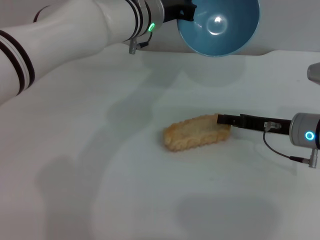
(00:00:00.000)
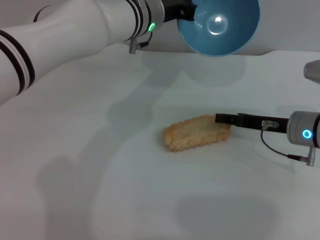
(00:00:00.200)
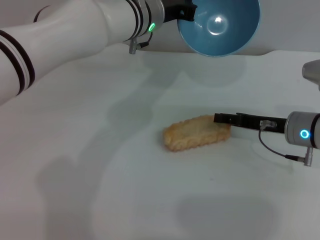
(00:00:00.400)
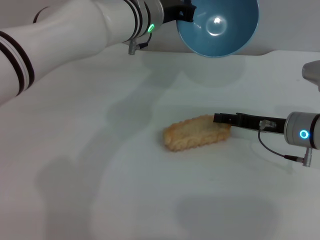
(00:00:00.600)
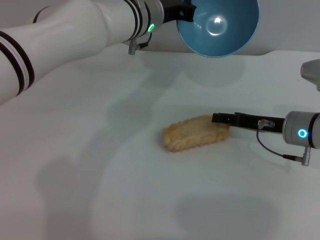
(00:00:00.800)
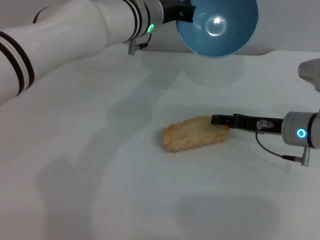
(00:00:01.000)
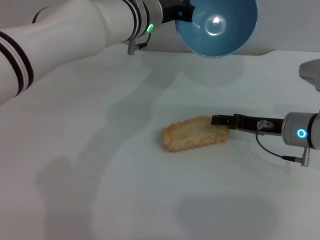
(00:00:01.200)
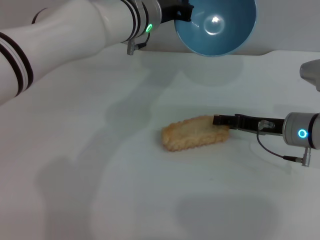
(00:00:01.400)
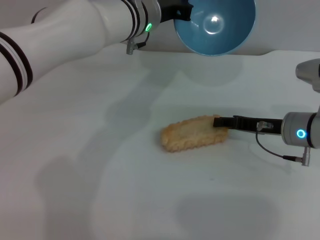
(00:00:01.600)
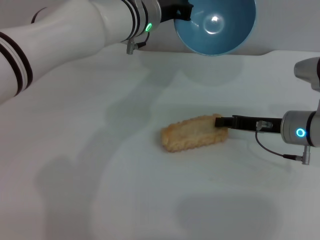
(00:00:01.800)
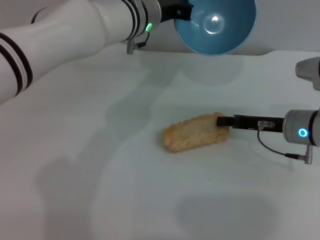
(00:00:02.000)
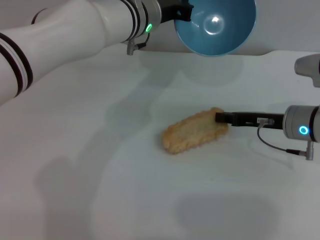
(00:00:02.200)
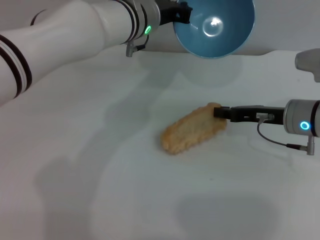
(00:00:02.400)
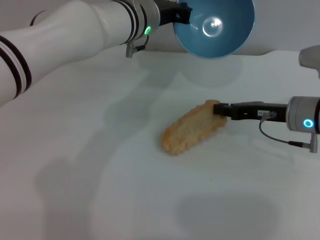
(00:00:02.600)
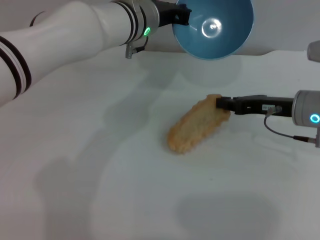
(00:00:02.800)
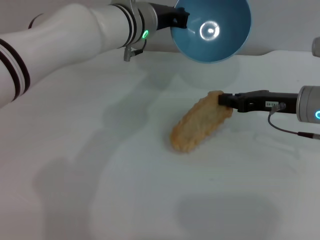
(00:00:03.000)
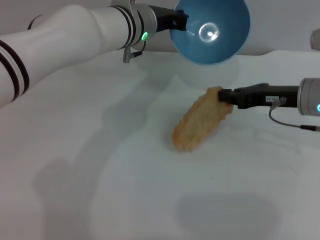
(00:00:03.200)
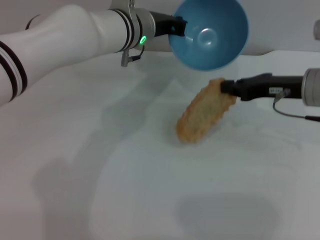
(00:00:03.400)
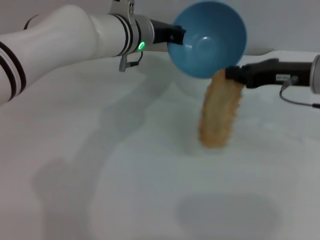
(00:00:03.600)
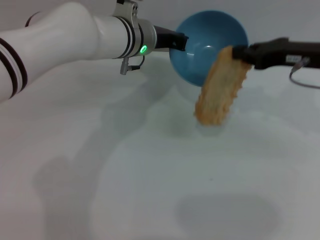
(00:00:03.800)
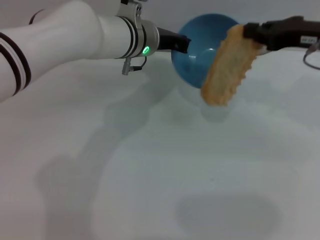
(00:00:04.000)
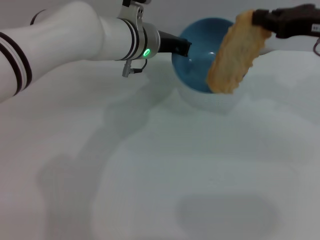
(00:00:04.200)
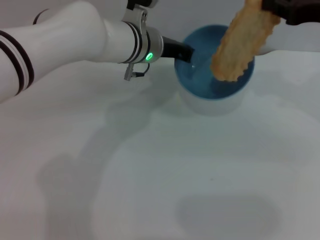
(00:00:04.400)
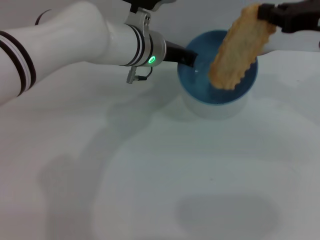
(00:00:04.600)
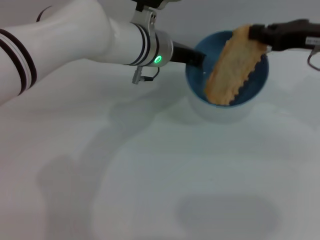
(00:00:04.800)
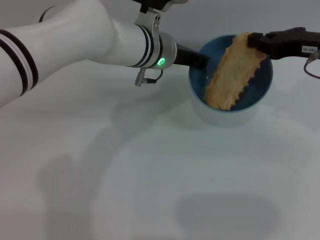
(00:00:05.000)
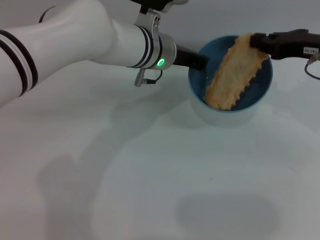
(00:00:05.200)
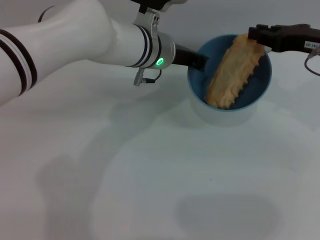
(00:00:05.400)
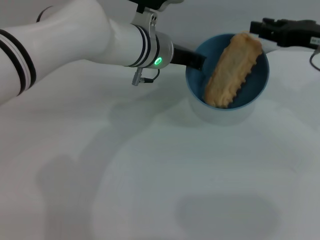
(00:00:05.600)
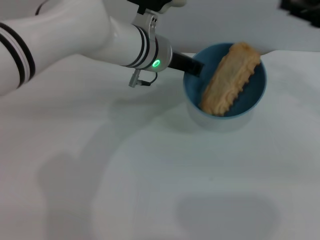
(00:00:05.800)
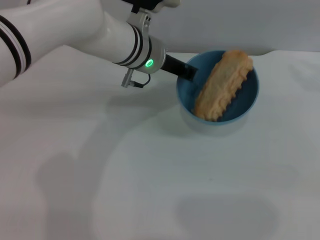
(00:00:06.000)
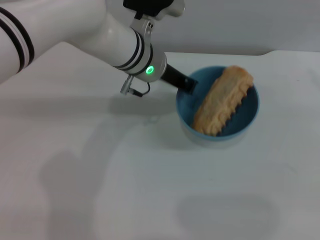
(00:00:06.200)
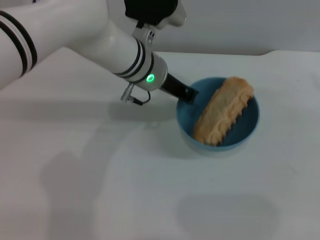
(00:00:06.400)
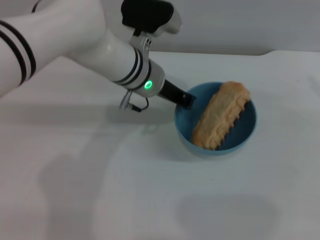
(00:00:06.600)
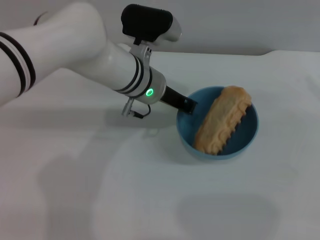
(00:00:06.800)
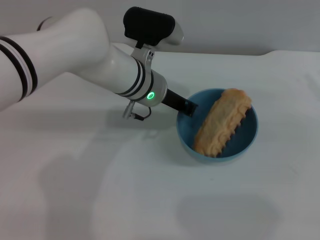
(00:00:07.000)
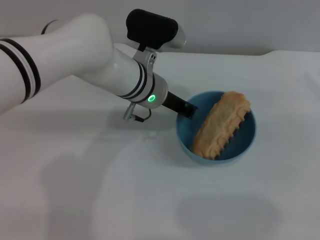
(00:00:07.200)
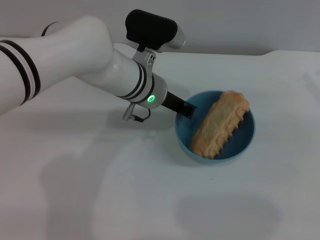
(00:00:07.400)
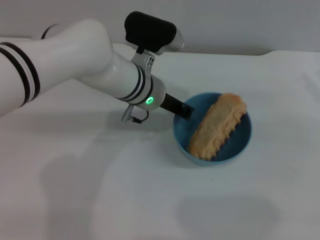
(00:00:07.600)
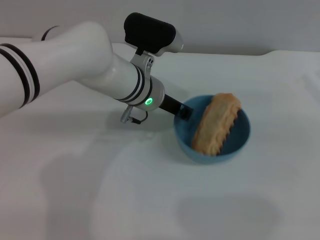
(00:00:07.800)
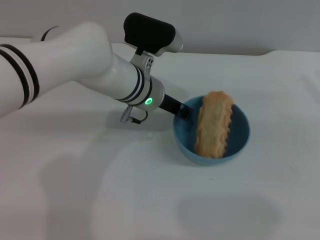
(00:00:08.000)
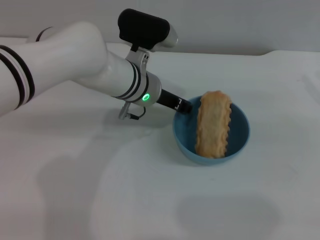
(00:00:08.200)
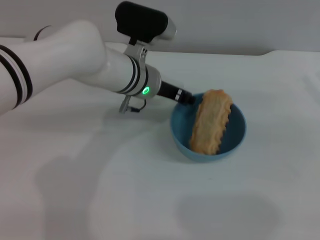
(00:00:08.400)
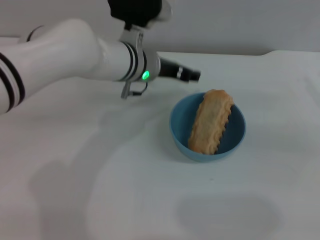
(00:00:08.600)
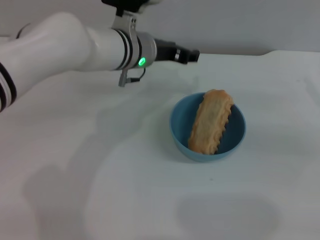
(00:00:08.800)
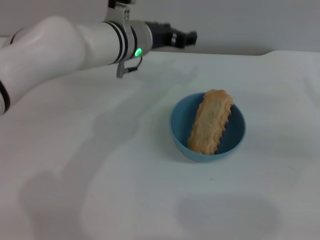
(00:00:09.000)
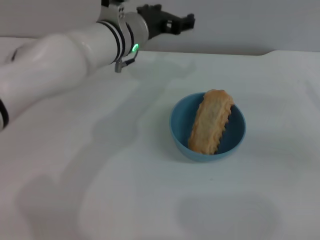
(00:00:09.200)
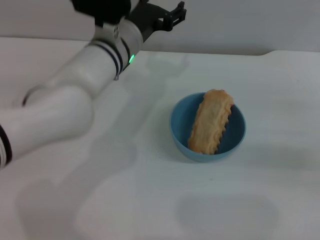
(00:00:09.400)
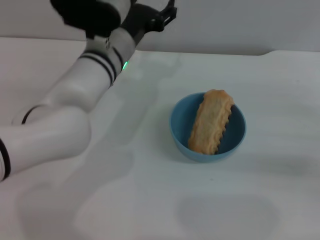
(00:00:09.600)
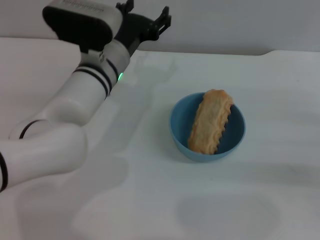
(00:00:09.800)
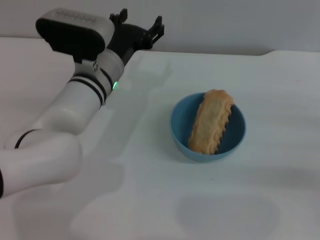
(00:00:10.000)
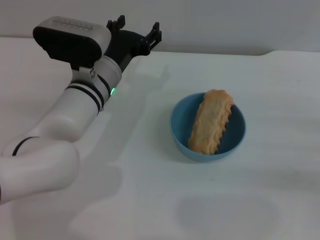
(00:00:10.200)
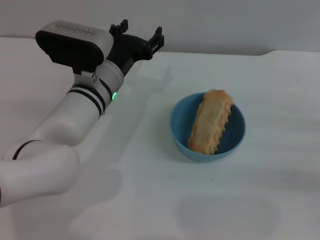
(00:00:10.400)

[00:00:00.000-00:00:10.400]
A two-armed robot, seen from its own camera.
Task of the whole recording: put the bread into the blue bowl and pour it out repeatedly.
Step, 00:00:00.000 to 00:00:04.200: Pick up the bread with the right gripper.
Step, 00:00:04.600 to 00:00:05.600: Place the bread into the bowl.
Step, 00:00:05.800 to 00:00:08.600: Place the bowl on the table.
00:00:00.000 to 00:00:01.400: Neither gripper changes place.
00:00:01.400 to 00:00:03.000: The right gripper moves upward, roughly 5 cm, and closes its fingers.
00:00:03.000 to 00:00:04.400: The right gripper moves upward, some 15 cm.
00:00:04.400 to 00:00:06.000: The right gripper heads to the right, covering some 10 cm, and opens up.
00:00:06.000 to 00:00:07.400: The right gripper shifts about 5 cm downward.
00:00:07.400 to 00:00:09.000: The left gripper shifts by some 5 cm, and opens up.
00:00:09.000 to 00:00:10.400: The right gripper shifts some 10 cm downward and backward; the left gripper travels backward and downward by approximately 10 cm.
